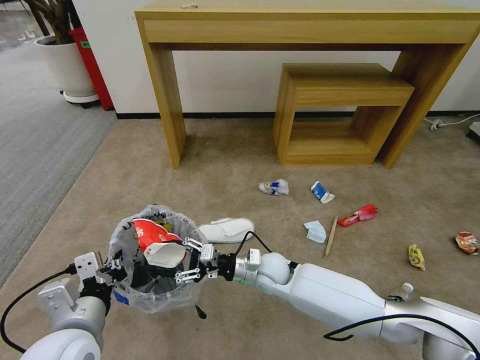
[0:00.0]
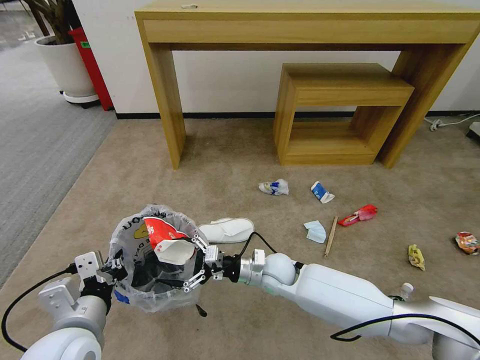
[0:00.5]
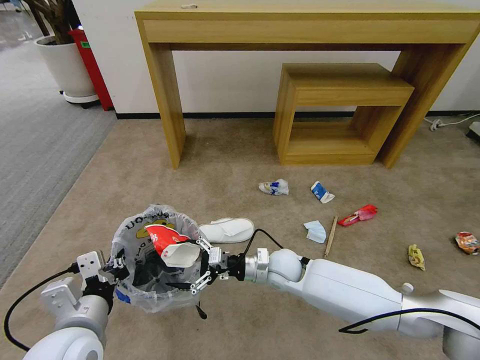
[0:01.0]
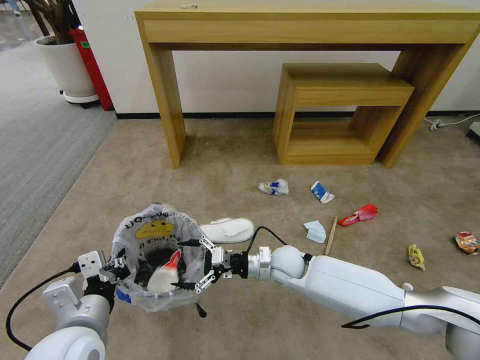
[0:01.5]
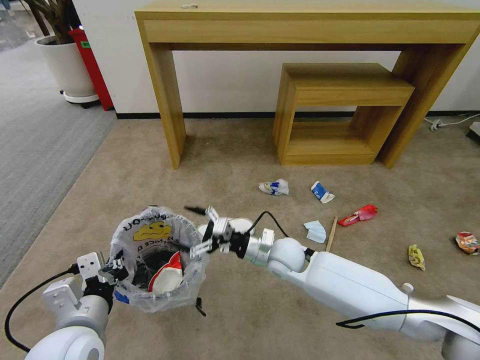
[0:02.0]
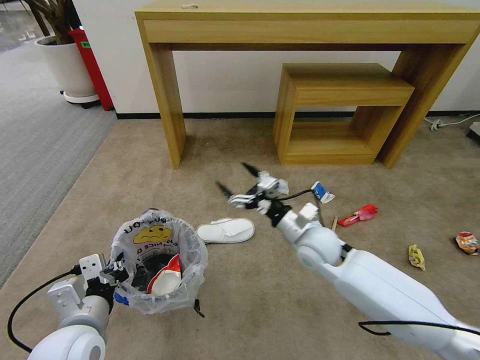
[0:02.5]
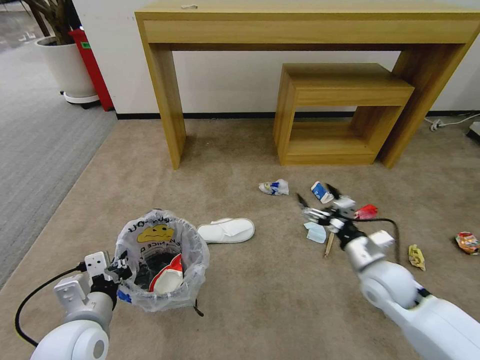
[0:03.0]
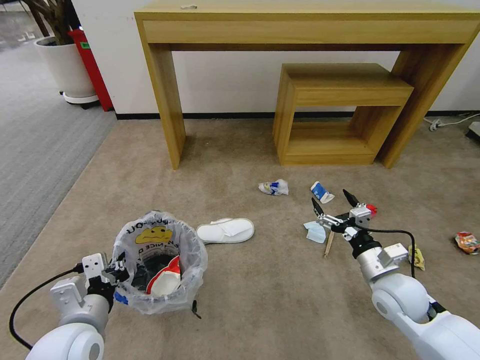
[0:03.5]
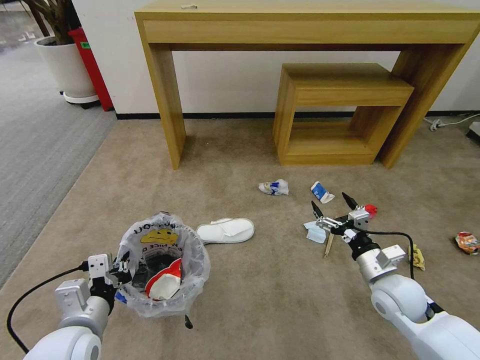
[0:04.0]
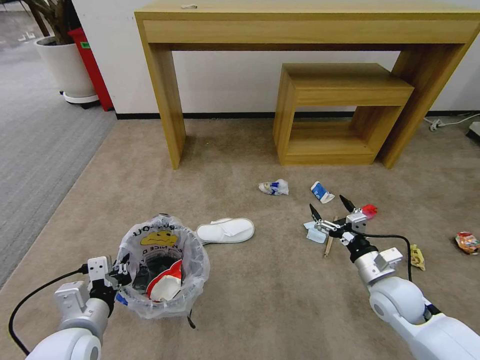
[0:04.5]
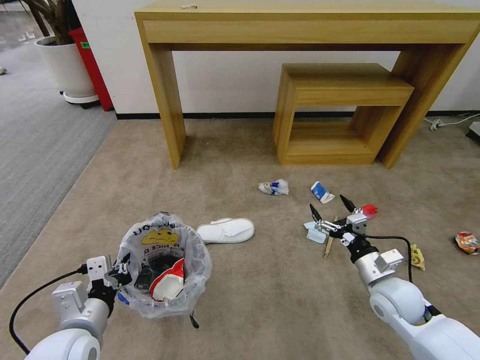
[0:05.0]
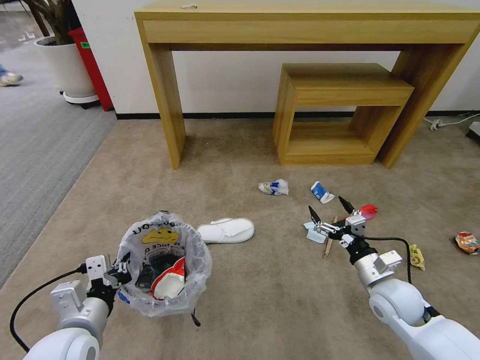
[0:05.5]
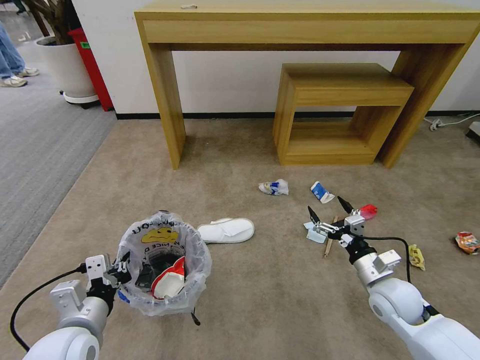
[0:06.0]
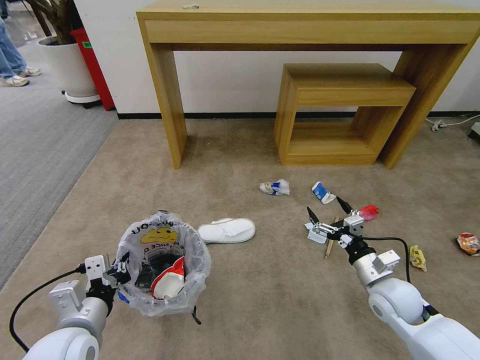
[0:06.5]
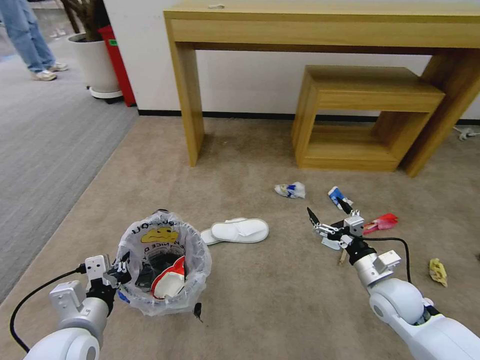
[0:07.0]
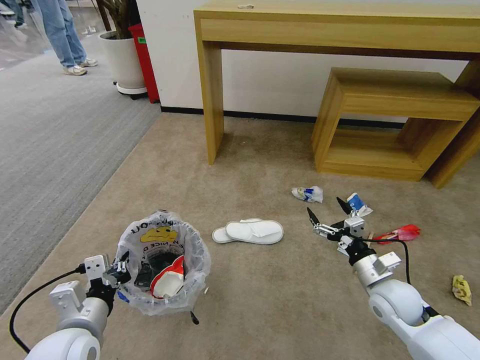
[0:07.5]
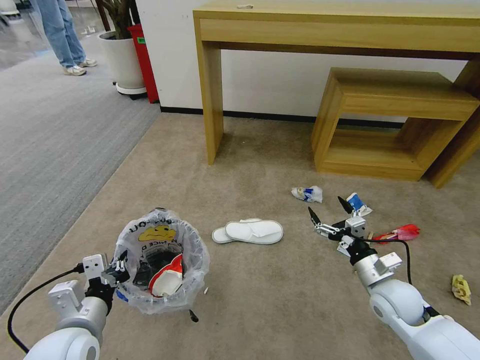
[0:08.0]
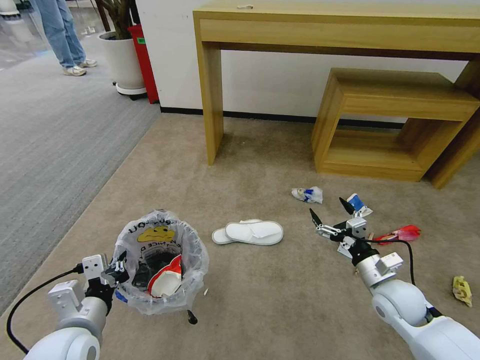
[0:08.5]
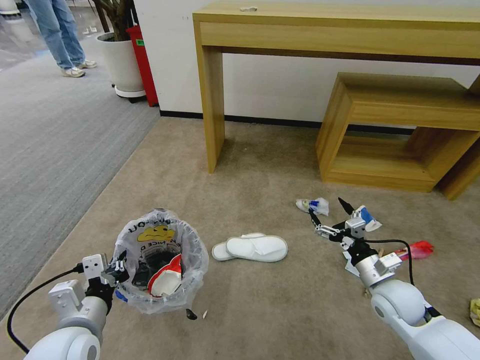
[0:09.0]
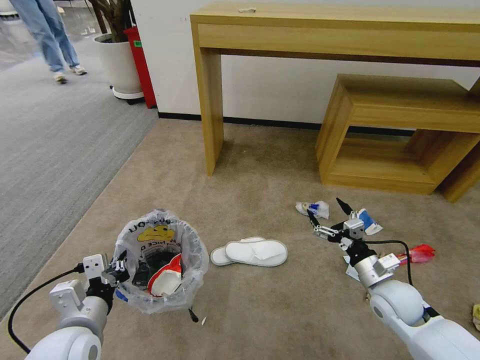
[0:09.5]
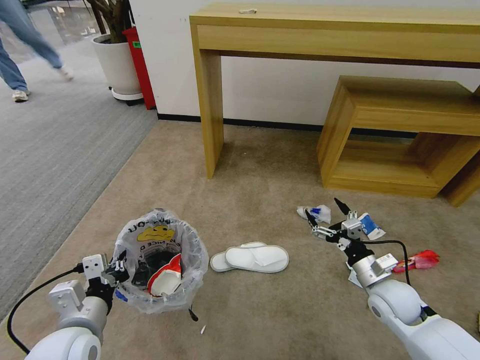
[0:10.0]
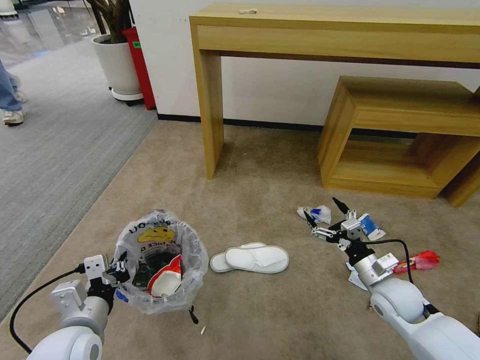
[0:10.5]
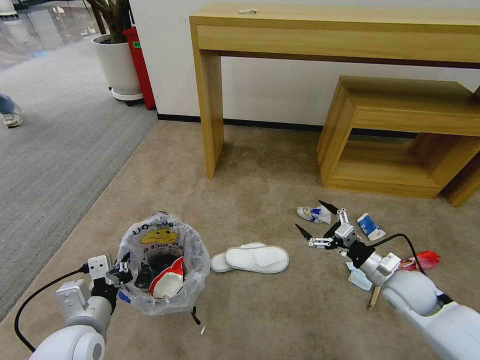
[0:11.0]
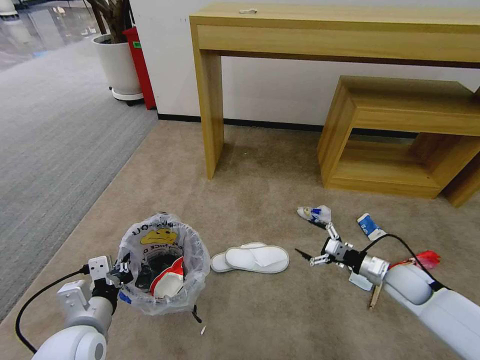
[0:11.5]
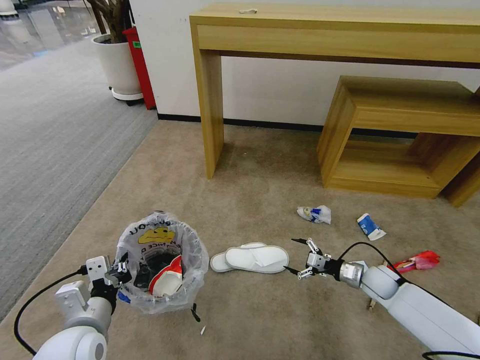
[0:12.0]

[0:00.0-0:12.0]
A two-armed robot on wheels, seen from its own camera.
Task of the whole recording: Pick up the trash bin and place the garbage on the floor into it.
0:00.0 to 0:02.0: The right gripper travels upward by approximately 5 cm, and opens up.
0:02.0 to 0:04.0: The right gripper shifts roughly 25 cm to the right and backward.
0:04.0 to 0:06.0: The grippers move only a little.
0:10.0 to 0:12.0: The right gripper moves downward, forward and to the right, about 15 cm.

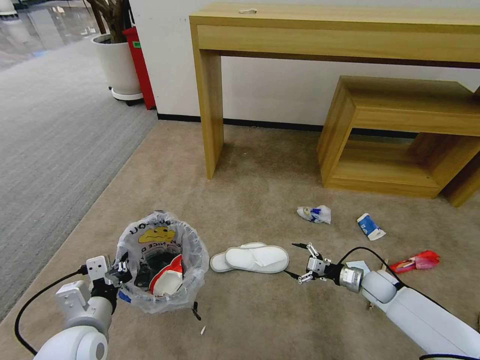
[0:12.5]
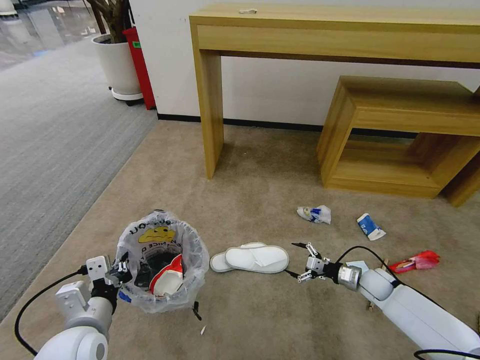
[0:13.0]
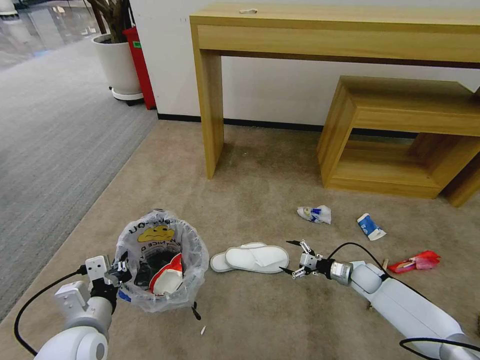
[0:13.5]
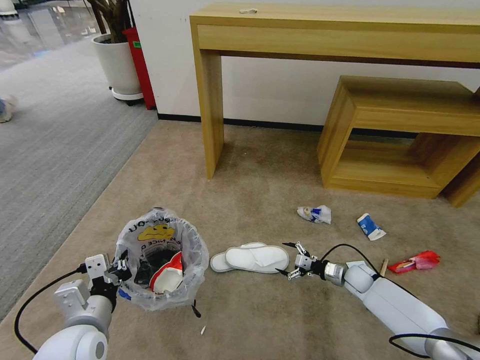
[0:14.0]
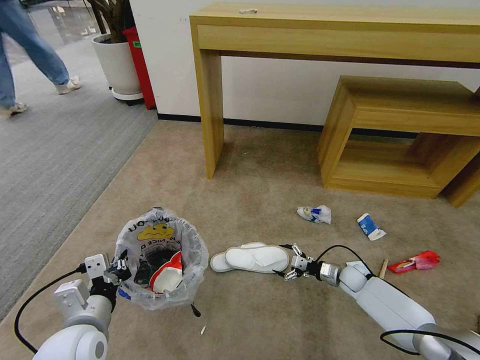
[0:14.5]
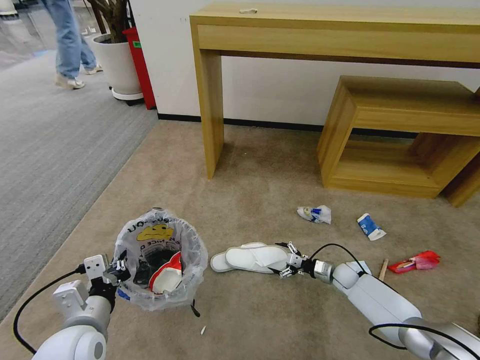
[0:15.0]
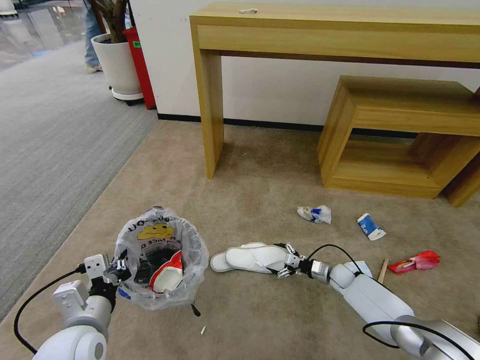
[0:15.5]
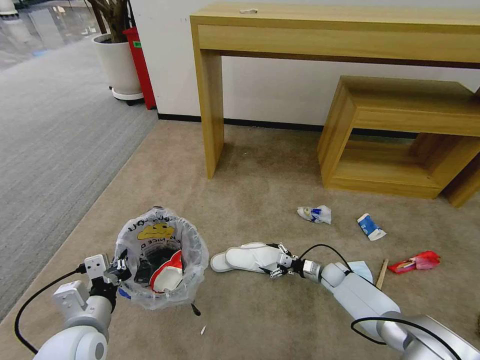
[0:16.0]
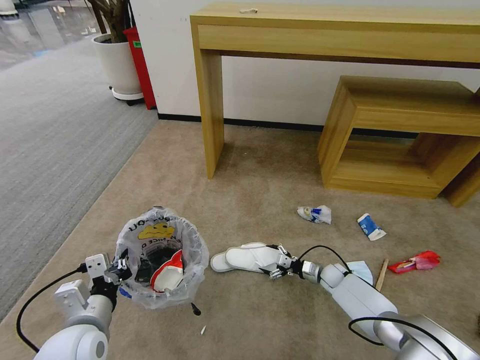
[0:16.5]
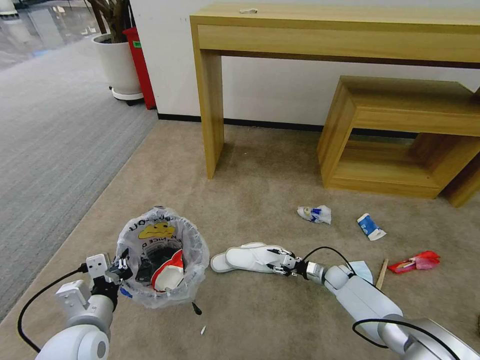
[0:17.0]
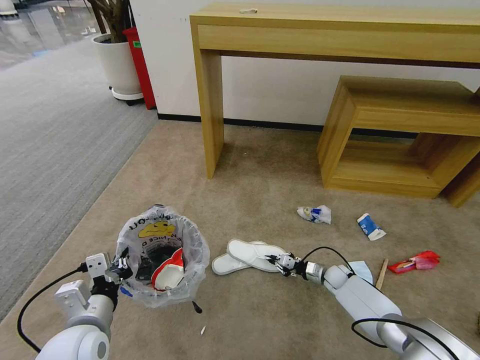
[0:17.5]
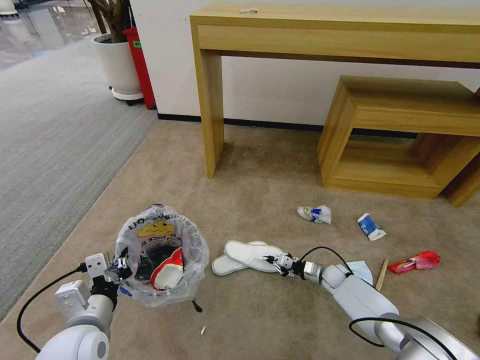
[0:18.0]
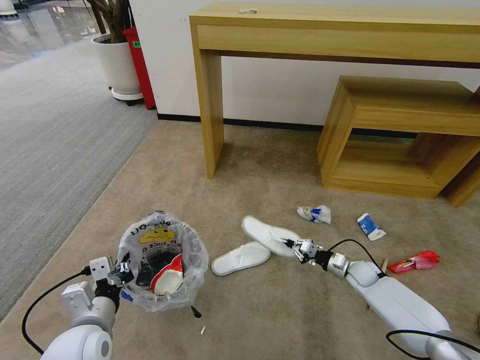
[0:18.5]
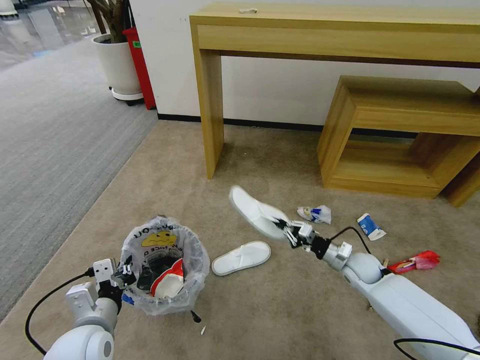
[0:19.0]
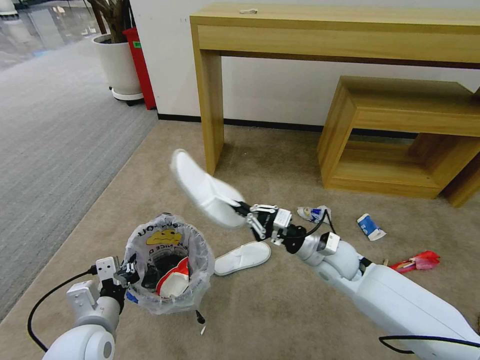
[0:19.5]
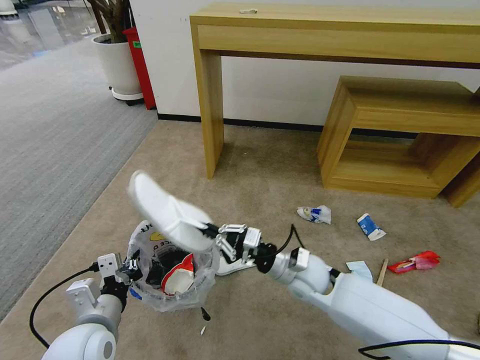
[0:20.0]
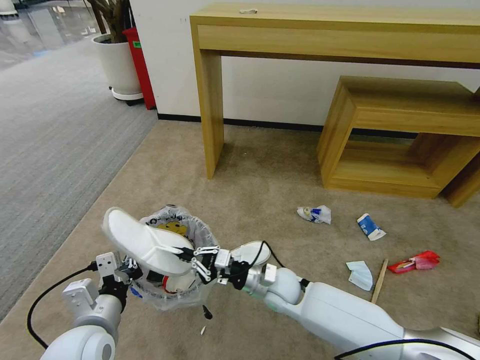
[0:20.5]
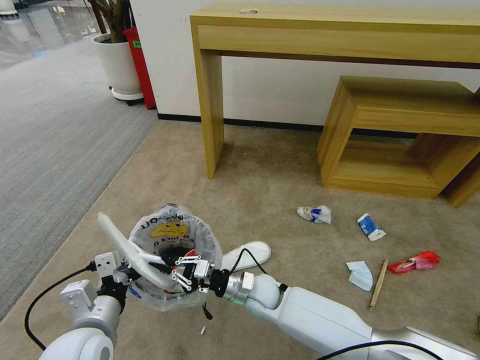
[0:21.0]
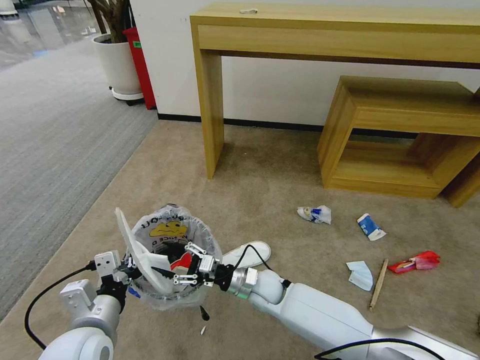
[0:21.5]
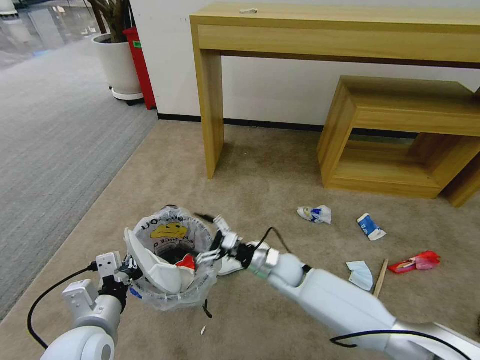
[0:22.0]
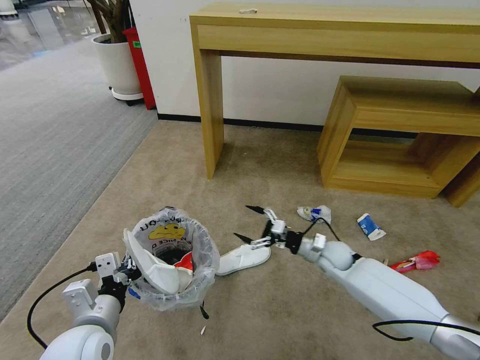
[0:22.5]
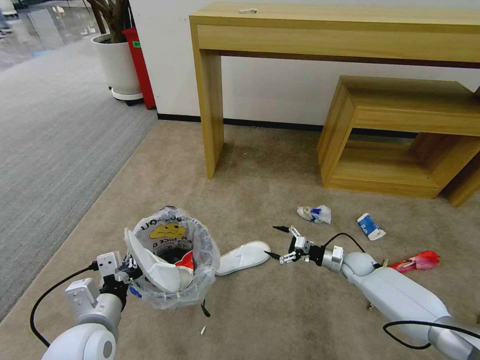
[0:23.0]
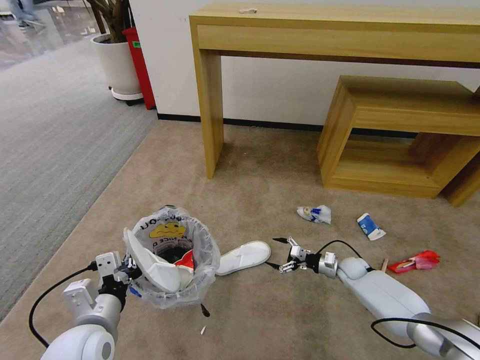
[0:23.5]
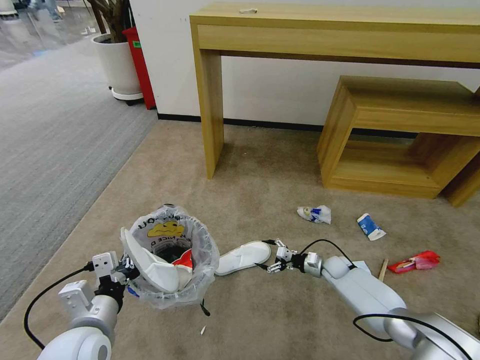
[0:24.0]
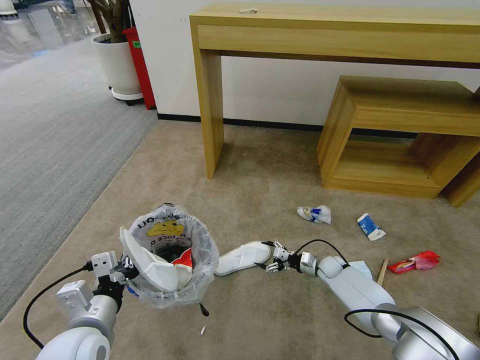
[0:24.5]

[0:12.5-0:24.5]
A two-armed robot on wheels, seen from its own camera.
Task of the whole recording: Pick up the trash bin and place the garbage on the floor into it.
0:12.5 to 0:14.5: The right gripper travels downward by roughly 5 cm.
0:14.5 to 0:16.5: The right gripper changes place by roughly 5 cm.
0:16.5 to 0:18.5: The right gripper goes roughly 10 cm to the right and upward, and closes its fingers.
0:18.5 to 0:20.5: The right gripper travels to the left by roughly 30 cm.
0:20.5 to 0:22.5: The right gripper heads to the right and forward, covering about 20 cm, and opens.
0:22.5 to 0:24.5: The right gripper goes approximately 15 cm downward.

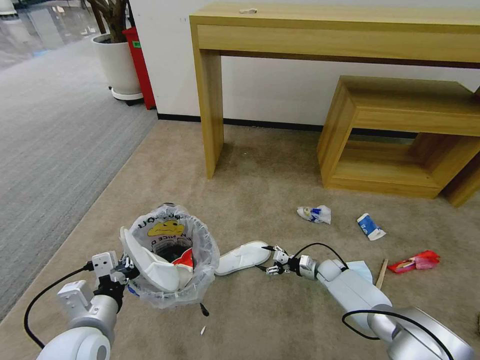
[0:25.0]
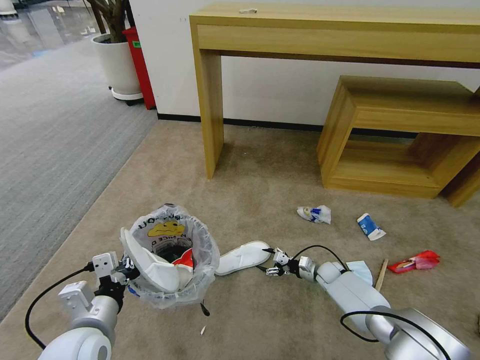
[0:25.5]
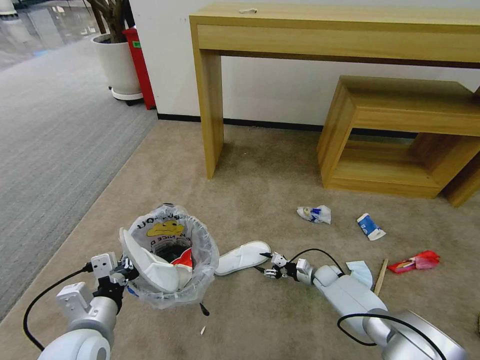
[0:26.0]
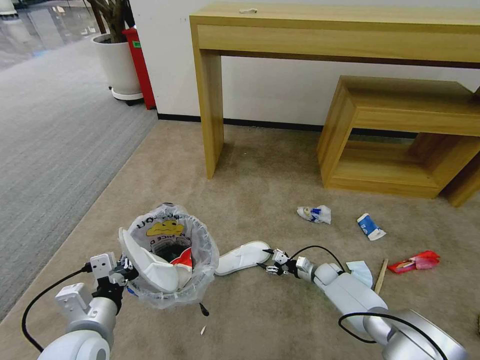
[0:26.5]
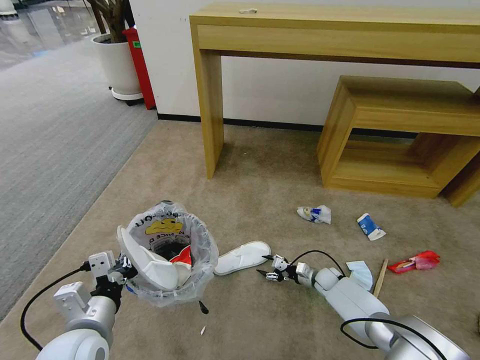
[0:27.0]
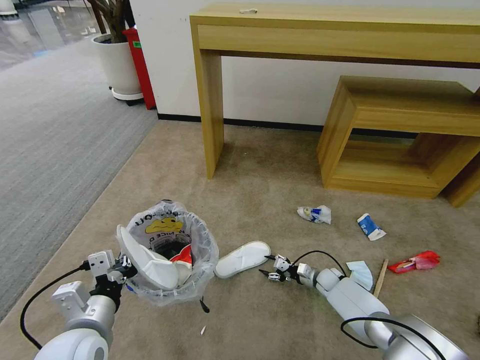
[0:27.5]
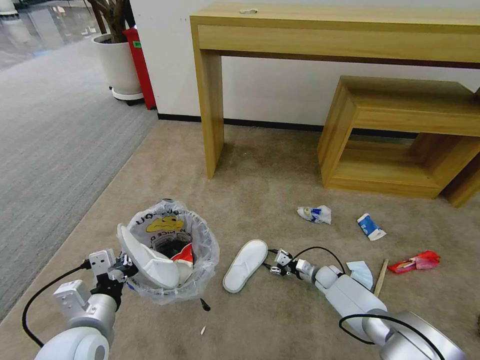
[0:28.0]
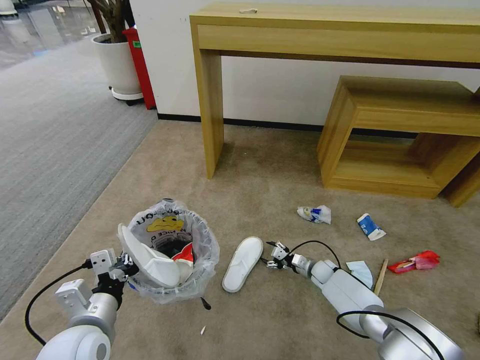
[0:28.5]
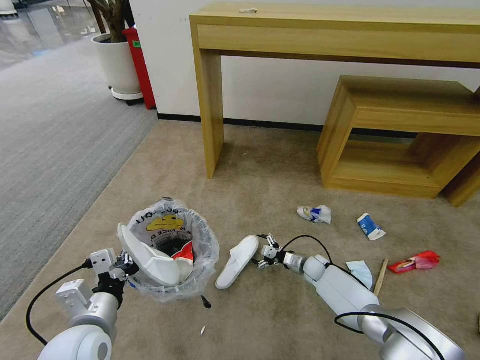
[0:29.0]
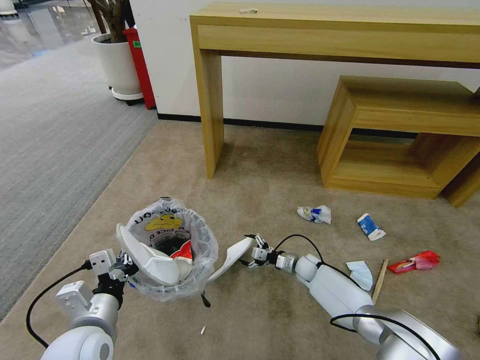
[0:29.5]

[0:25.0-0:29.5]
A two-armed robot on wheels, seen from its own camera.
Task of the whole recording: Pick up the trash bin and place the garbage on the floor into it.
0:25.0 to 0:27.0: There are only small adjustments of the grippers.
0:27.0 to 0:29.5: The right gripper shifts some 5 cm to the left, and opens up.
